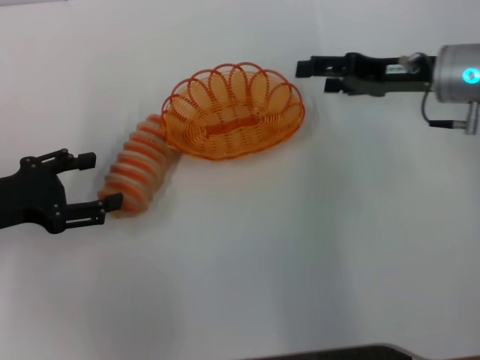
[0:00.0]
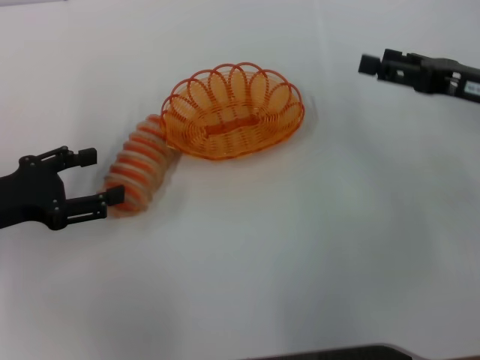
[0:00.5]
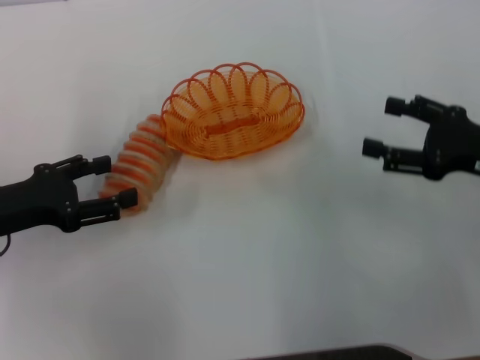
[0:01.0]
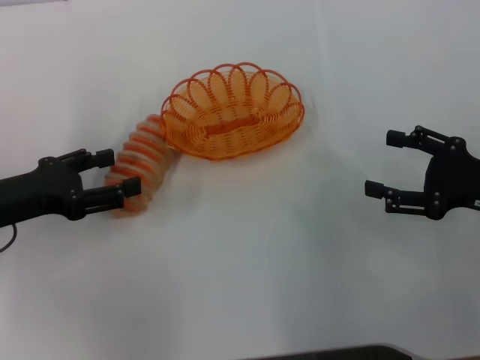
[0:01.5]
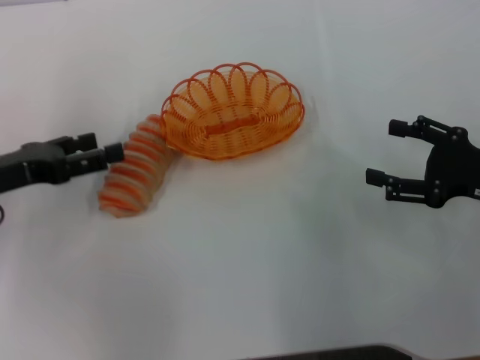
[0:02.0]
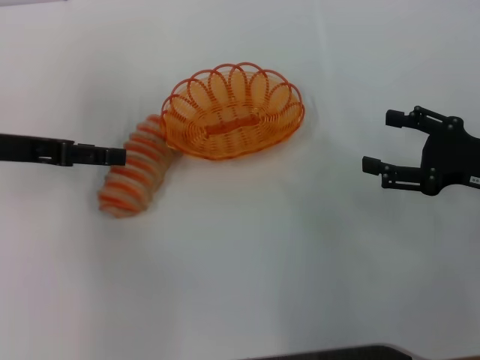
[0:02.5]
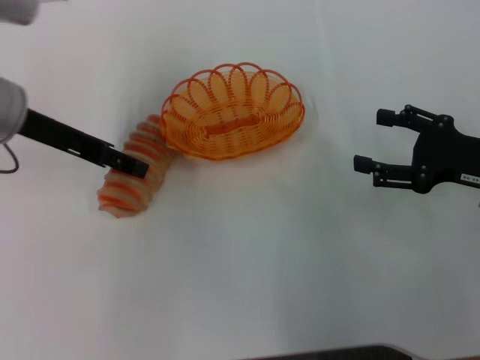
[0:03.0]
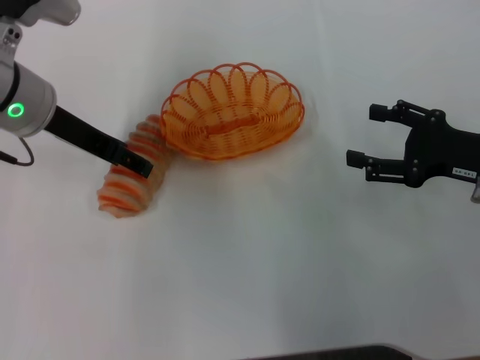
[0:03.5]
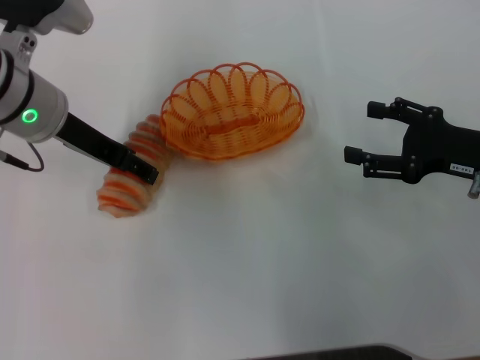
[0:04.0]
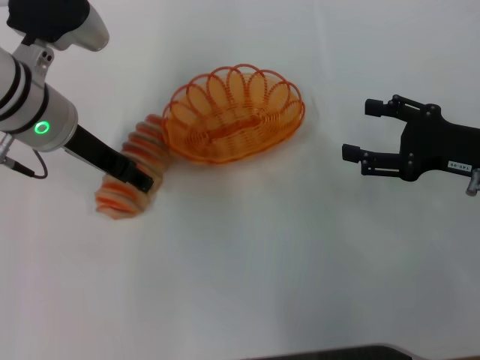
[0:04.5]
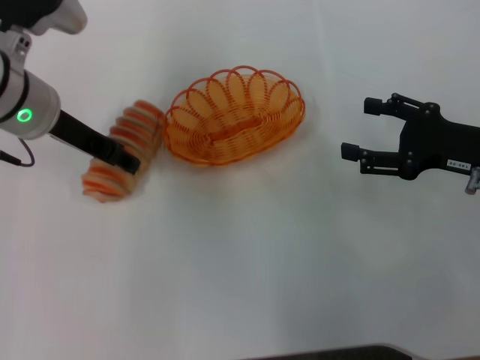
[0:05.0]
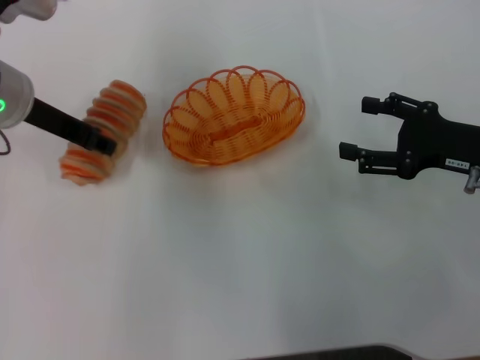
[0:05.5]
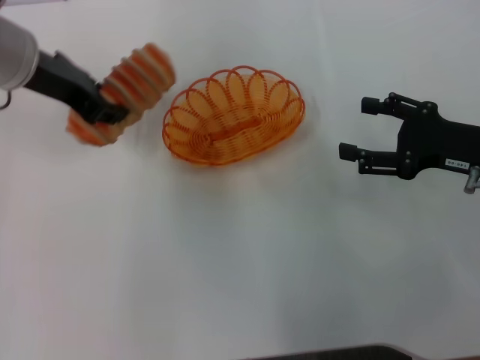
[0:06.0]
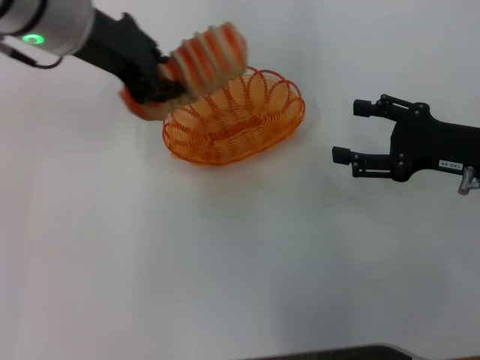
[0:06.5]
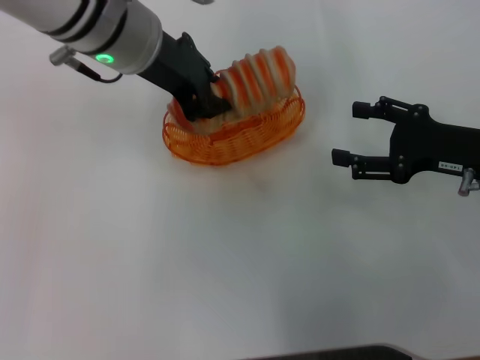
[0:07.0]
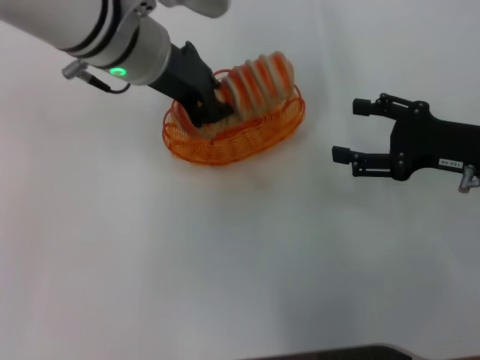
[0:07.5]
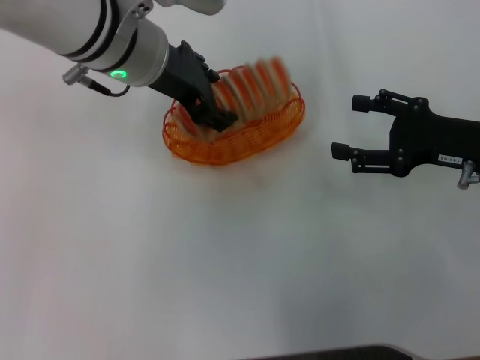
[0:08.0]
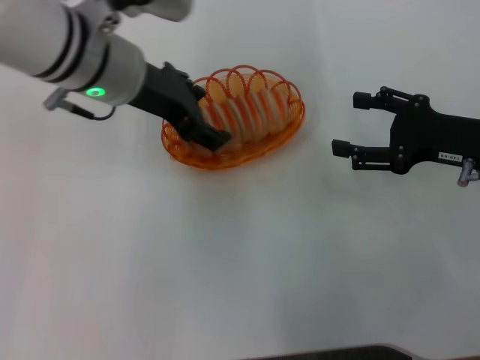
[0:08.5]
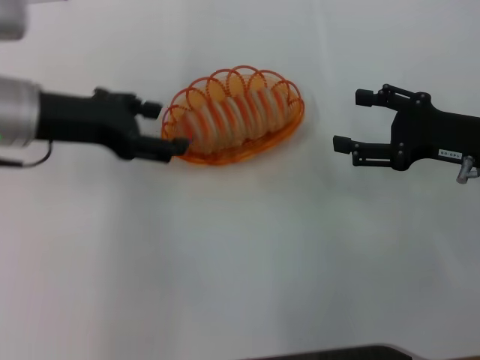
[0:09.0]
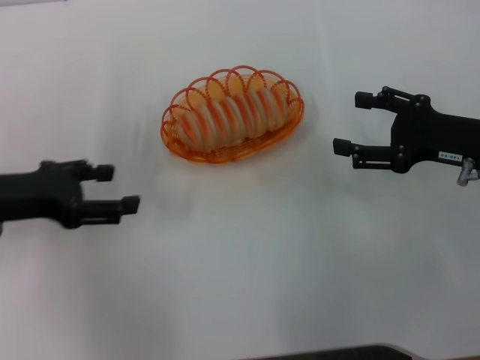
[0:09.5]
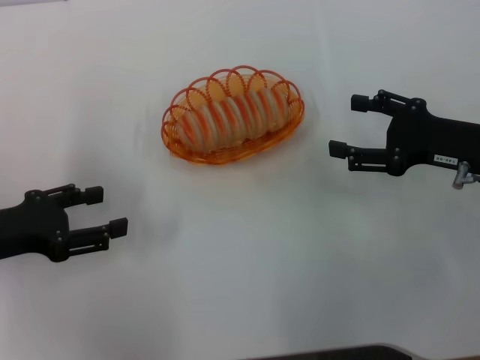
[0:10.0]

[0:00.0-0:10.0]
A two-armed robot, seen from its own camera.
Step, 0:00.5 to 0:05.5: Pick up the long bread with the left gripper.
Step, 0:06.0 to 0:09.0: Place the long bread into the basket with the left gripper.
0:00.0 to 0:02.0: The right gripper shifts roughly 15 cm backward and to the right.
0:02.0 to 0:04.0: The left gripper moves to the right, forward and upward, some 15 cm.
0:04.0 to 0:06.0: The left gripper closes up.
0:06.0 to 0:08.0: The left gripper shifts some 10 cm to the right.
0:08.0 to 0:10.0: The left gripper is displaced to the left, backward and downward by about 25 cm, and opens its fingers.

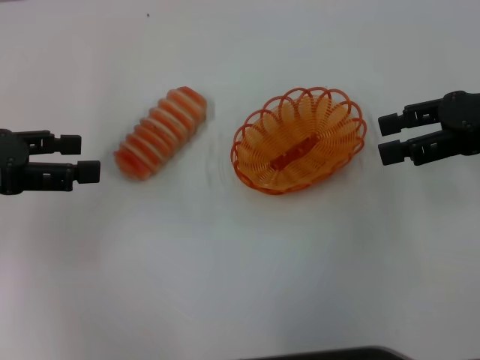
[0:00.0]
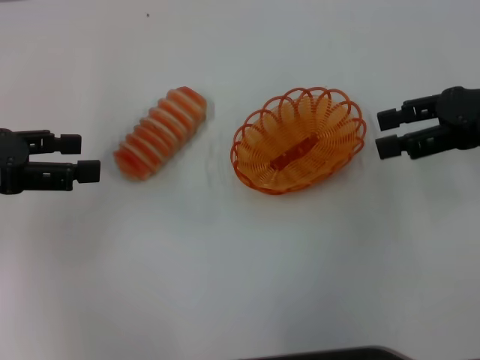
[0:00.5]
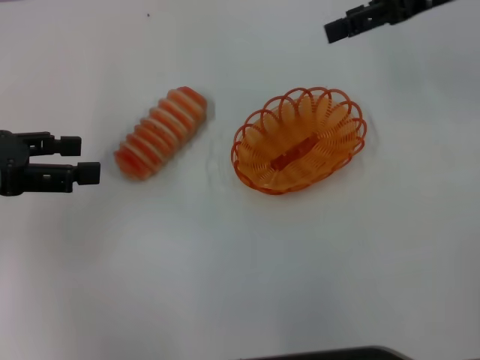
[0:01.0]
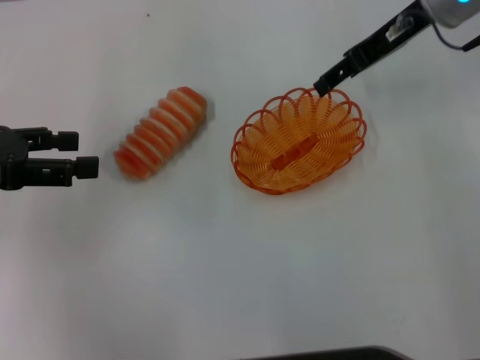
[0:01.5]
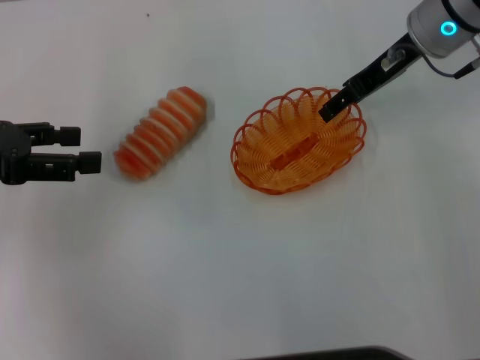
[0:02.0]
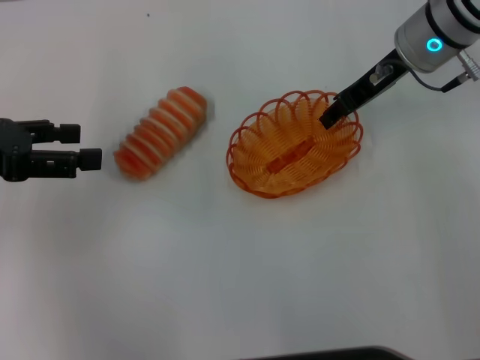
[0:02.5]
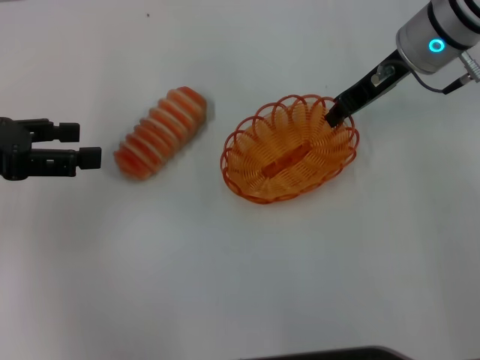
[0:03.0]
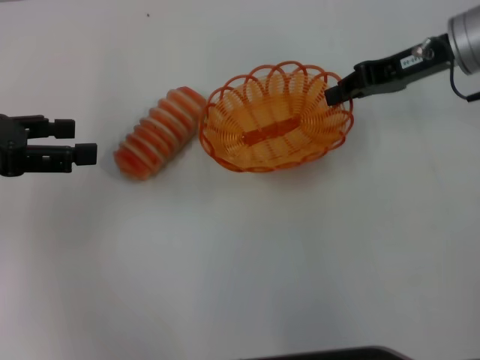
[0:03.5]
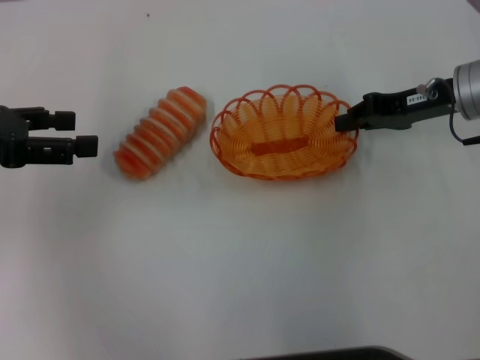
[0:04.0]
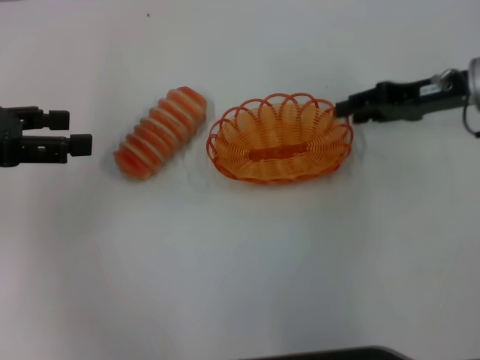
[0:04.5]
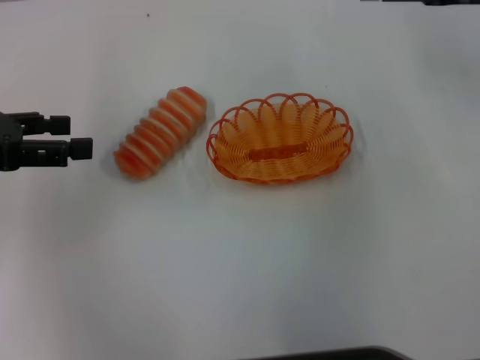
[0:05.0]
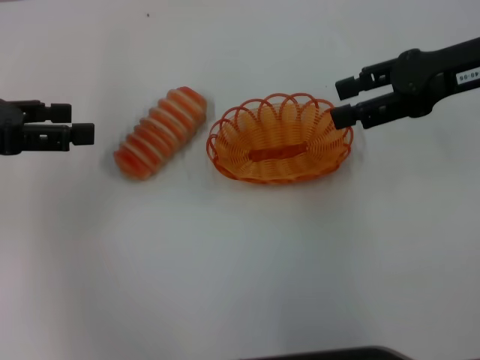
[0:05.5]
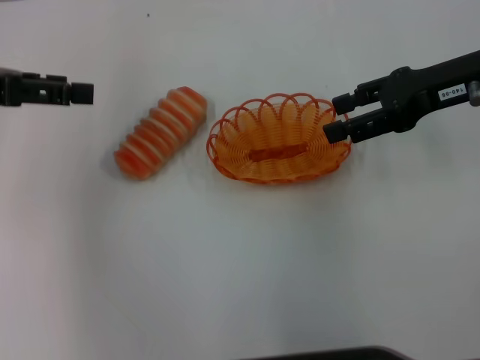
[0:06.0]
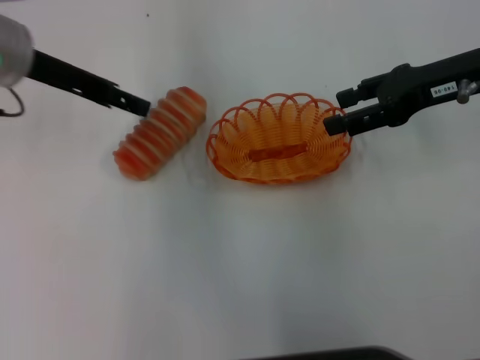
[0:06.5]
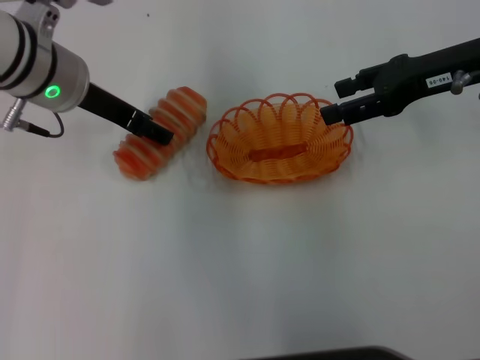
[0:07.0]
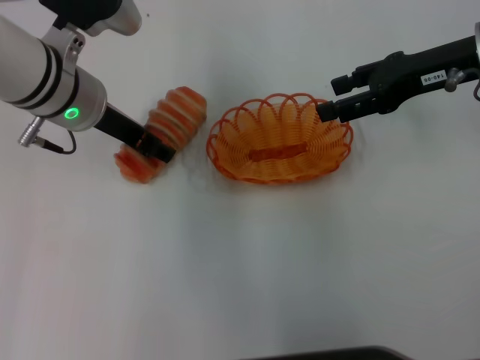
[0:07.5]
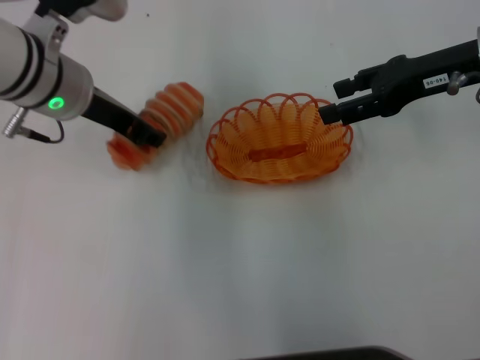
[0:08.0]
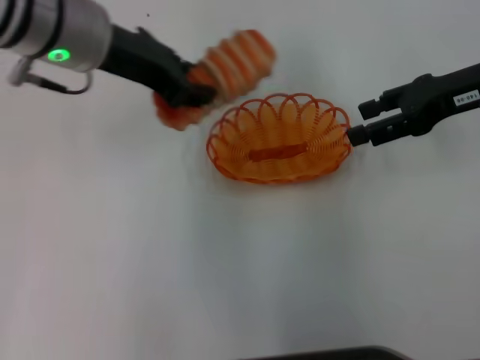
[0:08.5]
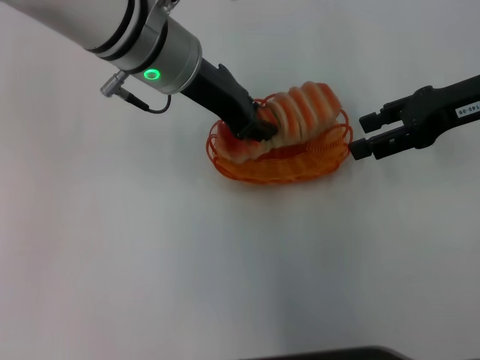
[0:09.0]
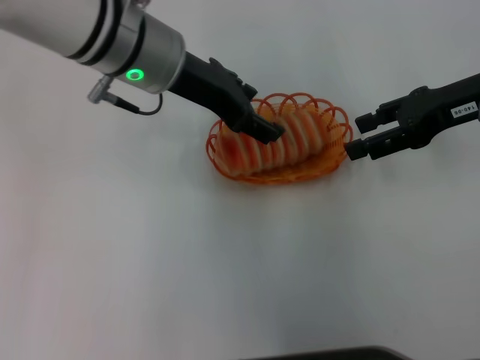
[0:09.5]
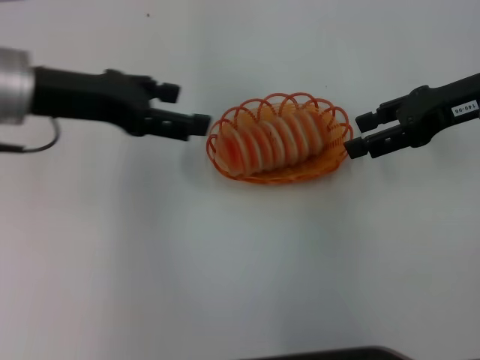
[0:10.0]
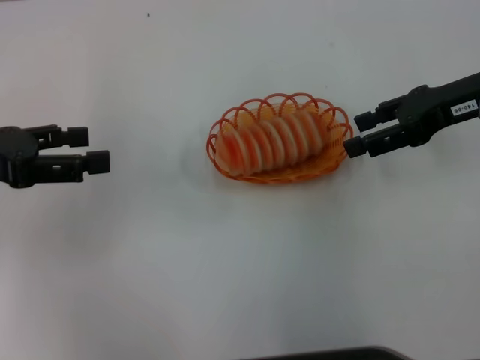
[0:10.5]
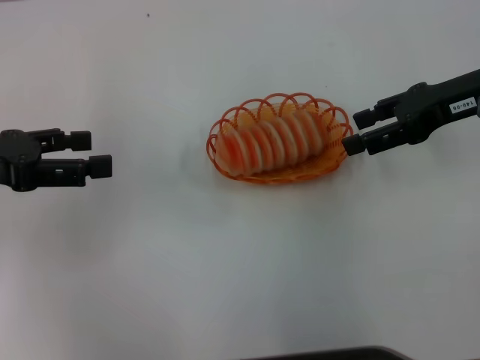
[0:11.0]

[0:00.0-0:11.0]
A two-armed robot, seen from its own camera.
Step, 0:00.0 to 0:03.0: Pick up the basket with the right gripper.
Step, 0:03.5 to 0:04.5: Place the basket in the center of view with the right gripper.
Step, 0:05.0 to 0:08.0: Pick up the long bread with the left gripper.
Step, 0:08.5 to 0:09.5: Place the long bread into the basket with the left gripper.
0:00.0 to 0:02.0: The right gripper travels forward and to the left by approximately 15 cm.
0:02.0 to 0:03.5: The right gripper moves roughly 5 cm, and closes.
0:03.5 to 0:05.5: The right gripper shifts roughly 5 cm backward, and opens.
0:05.5 to 0:07.5: The left gripper heads to the right, covering about 15 cm.
0:07.5 to 0:09.0: The left gripper travels to the right by about 10 cm, and closes up.
0:09.0 to 0:11.0: The left gripper travels to the left by some 25 cm, and opens its fingers.
